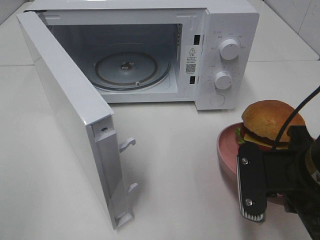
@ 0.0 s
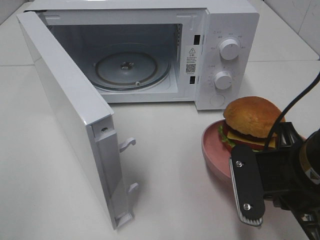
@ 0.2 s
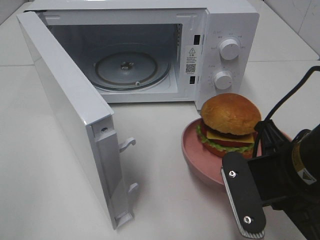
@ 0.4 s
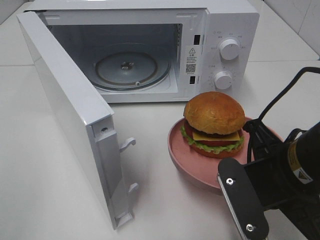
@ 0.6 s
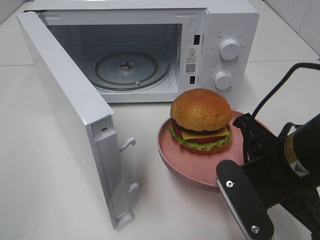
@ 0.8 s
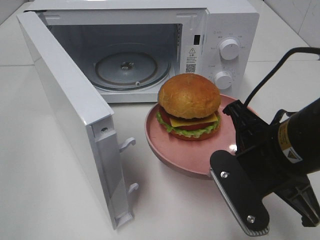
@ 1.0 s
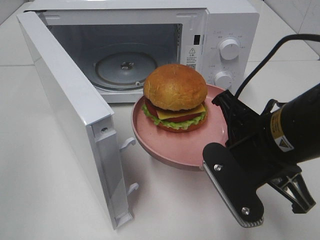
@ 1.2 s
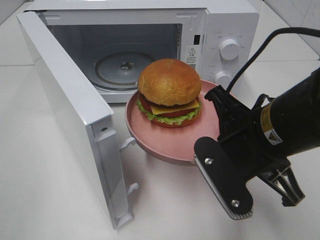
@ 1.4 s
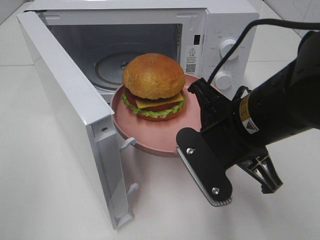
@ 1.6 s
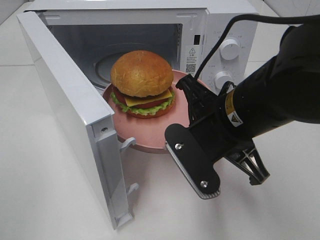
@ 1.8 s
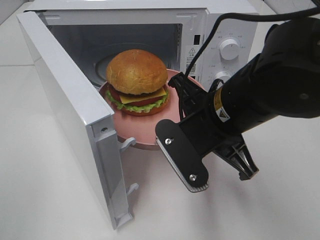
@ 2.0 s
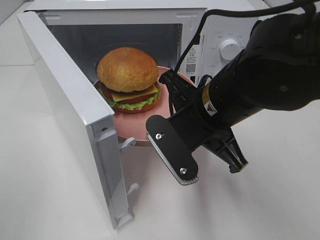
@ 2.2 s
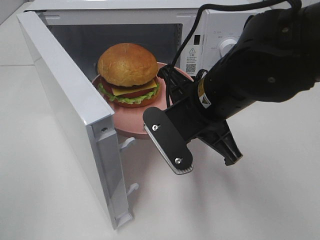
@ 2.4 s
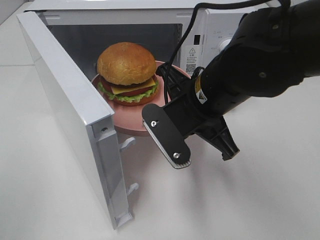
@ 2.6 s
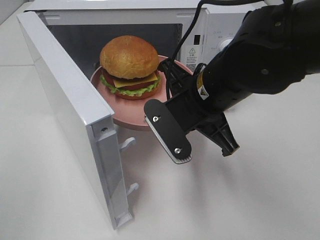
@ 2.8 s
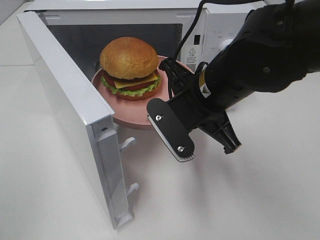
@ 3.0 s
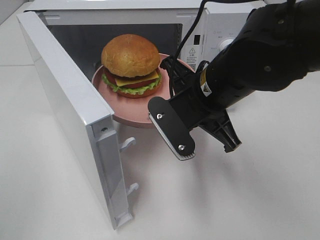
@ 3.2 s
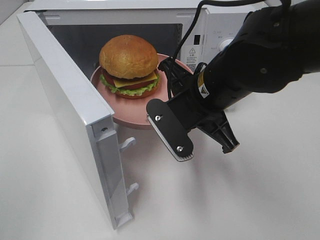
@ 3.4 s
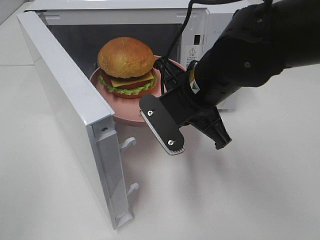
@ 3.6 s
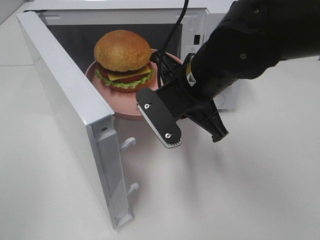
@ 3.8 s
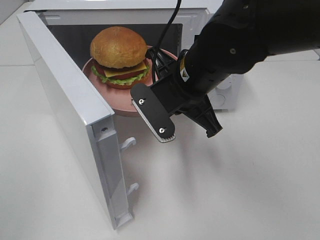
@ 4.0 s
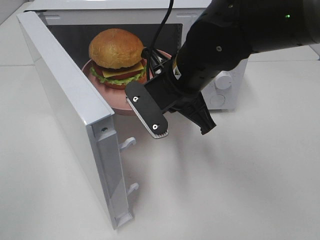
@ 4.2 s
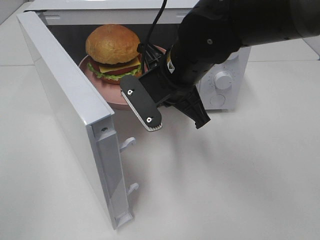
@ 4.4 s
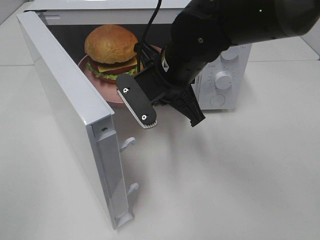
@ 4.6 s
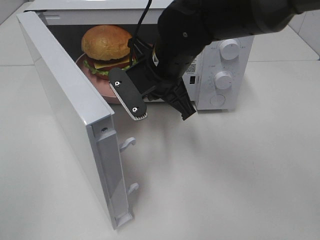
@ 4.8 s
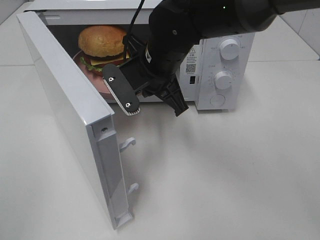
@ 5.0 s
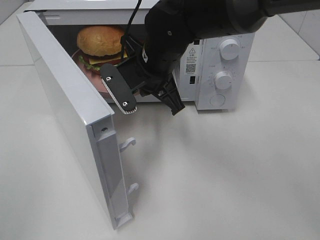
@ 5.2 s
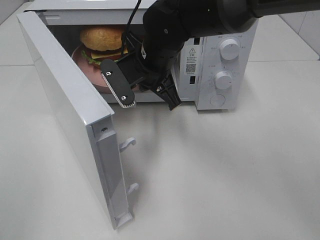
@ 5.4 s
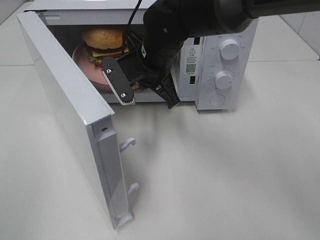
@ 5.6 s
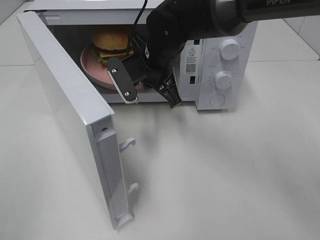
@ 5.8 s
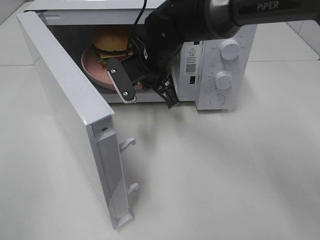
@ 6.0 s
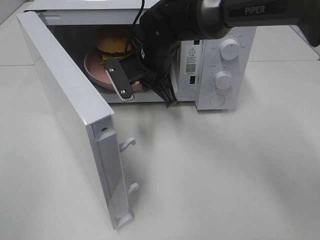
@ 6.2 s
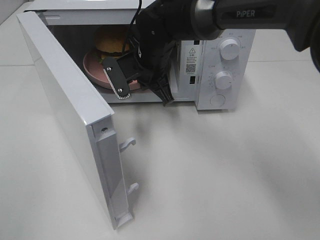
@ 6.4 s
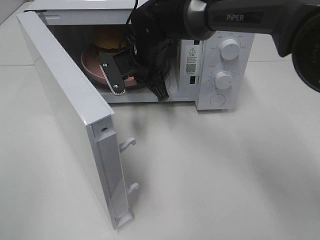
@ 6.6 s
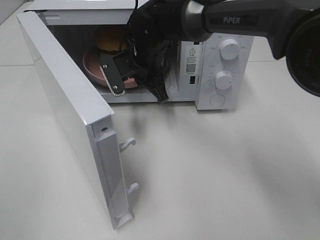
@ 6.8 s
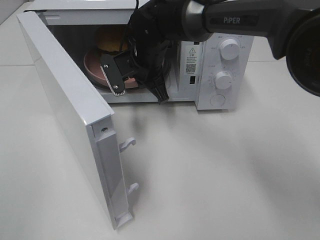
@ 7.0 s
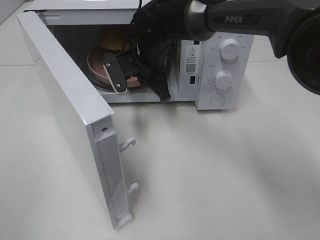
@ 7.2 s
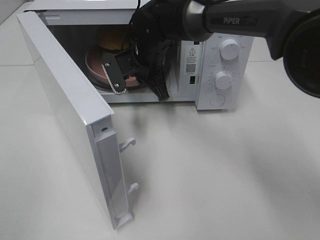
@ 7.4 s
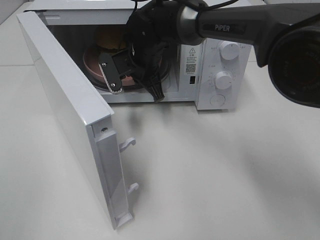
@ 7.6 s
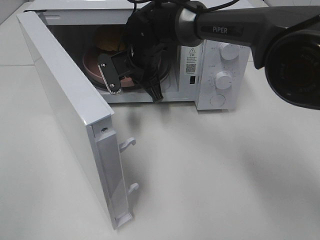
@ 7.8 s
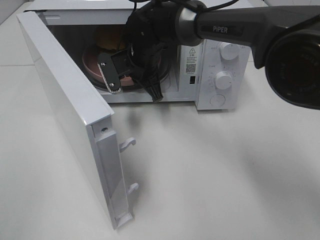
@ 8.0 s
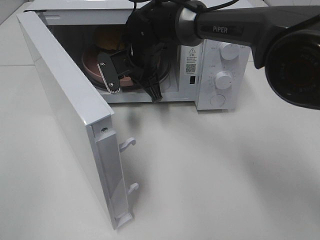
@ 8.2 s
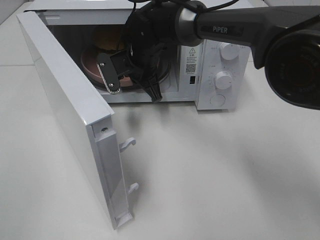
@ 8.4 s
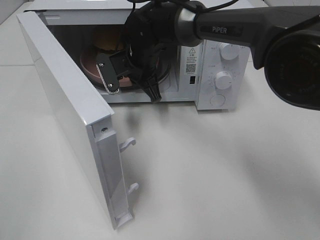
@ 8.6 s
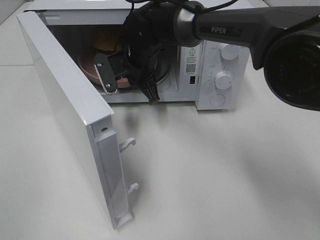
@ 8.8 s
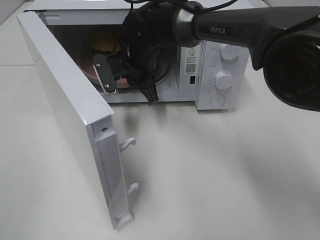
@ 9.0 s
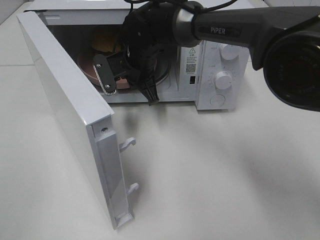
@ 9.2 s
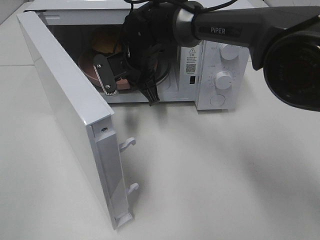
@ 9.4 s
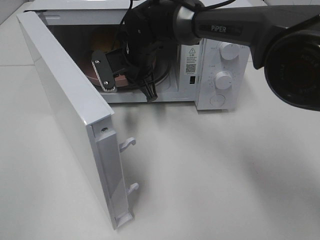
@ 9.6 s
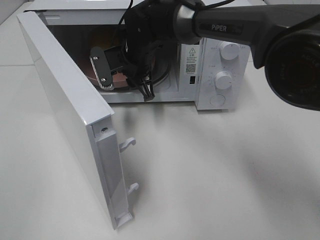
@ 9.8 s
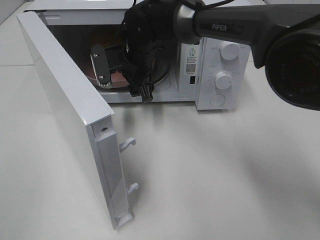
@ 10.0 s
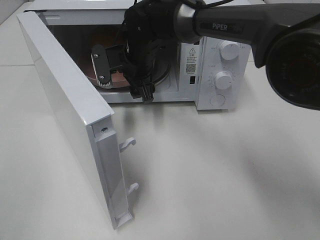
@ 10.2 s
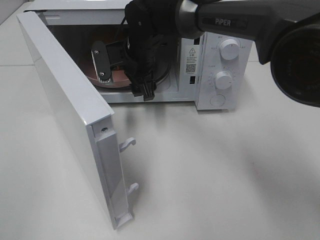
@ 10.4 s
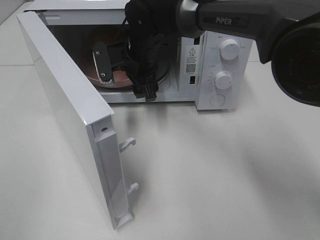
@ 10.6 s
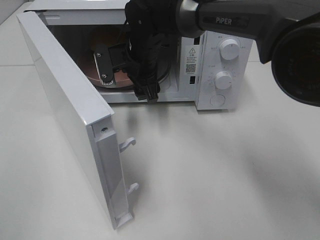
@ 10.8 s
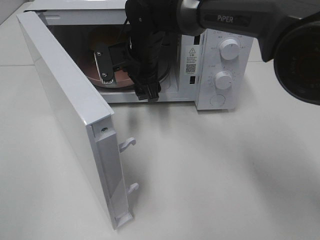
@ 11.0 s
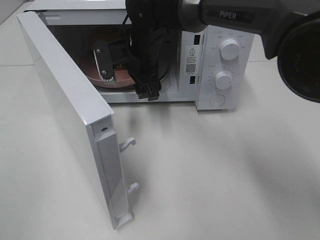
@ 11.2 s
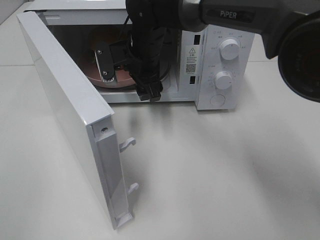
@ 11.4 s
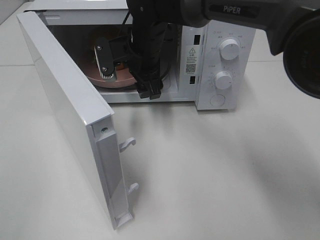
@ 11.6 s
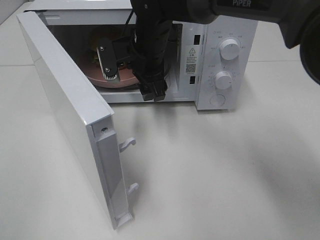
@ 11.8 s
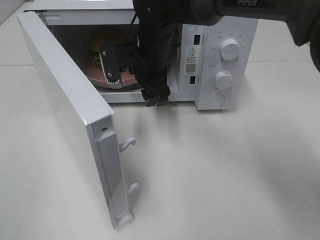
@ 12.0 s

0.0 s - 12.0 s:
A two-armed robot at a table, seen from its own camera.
Task of the whole recording: Heat the burger.
Step, 0.0 s - 9.6 s: Right hand: place the plate in the microwave.
0.0 s - 1.6 s: The right gripper travels to the left by about 5 cm.
1.6 s - 3.0 s: The right gripper travels forward by roughly 5 cm.
3.0 s - 4.4 s: The right gripper changes place by approximately 5 cm.
4.4 s - 6.0 s: The right gripper travels forward by roughly 10 cm.
6.0 s - 7.6 s: The right gripper moves roughly 5 cm.
7.6 s - 9.0 s: The two grippers keep their place.
9.0 s - 10.4 s: The right gripper opens its fingers.
10.4 s - 12.0 s: The grippers stay close to where they were, moving slightly.

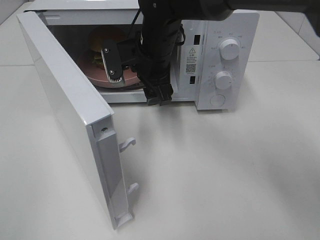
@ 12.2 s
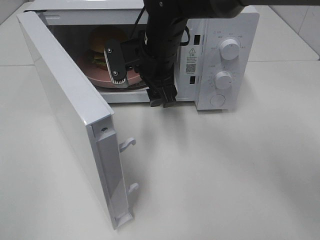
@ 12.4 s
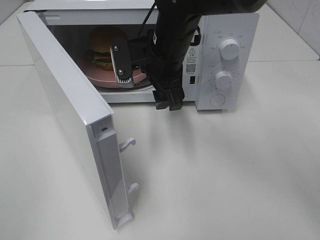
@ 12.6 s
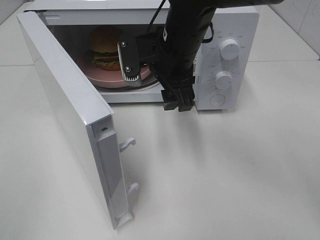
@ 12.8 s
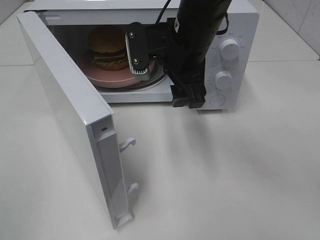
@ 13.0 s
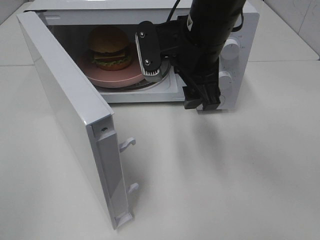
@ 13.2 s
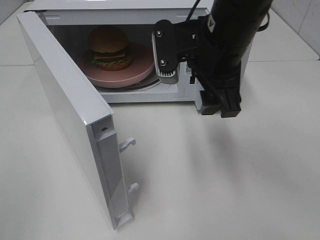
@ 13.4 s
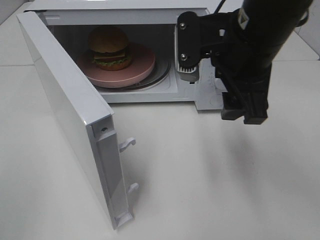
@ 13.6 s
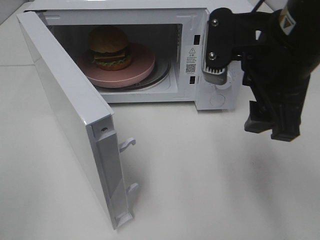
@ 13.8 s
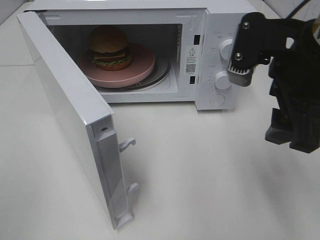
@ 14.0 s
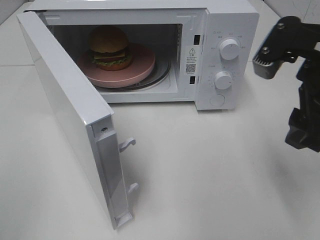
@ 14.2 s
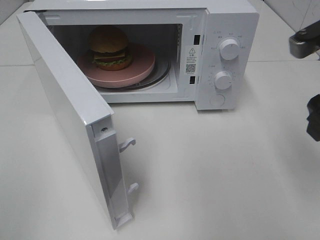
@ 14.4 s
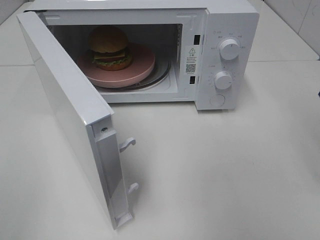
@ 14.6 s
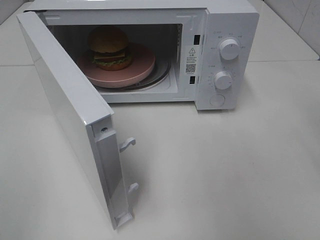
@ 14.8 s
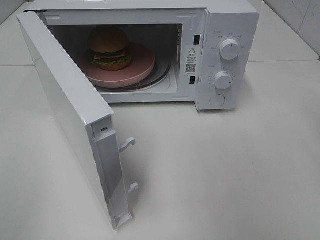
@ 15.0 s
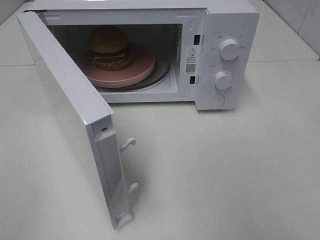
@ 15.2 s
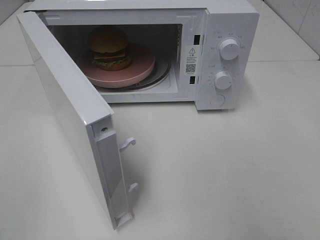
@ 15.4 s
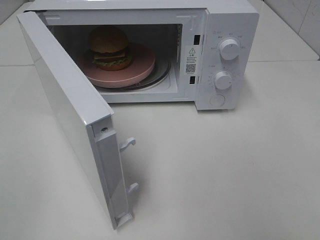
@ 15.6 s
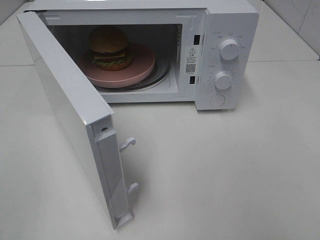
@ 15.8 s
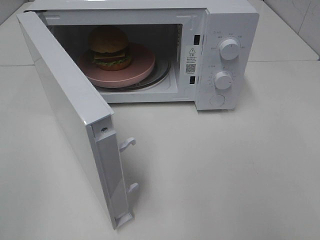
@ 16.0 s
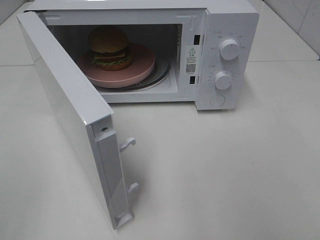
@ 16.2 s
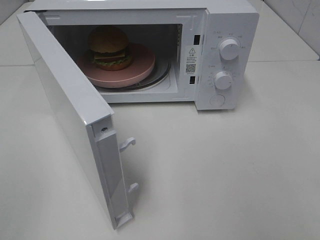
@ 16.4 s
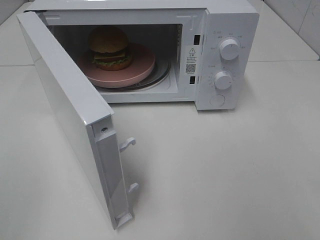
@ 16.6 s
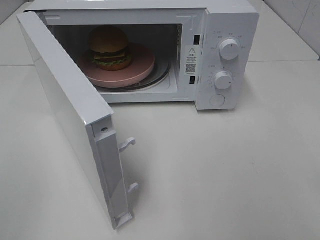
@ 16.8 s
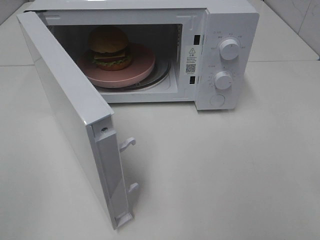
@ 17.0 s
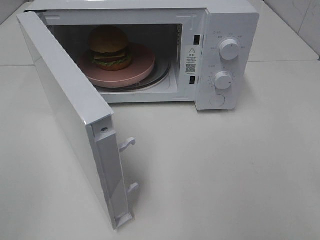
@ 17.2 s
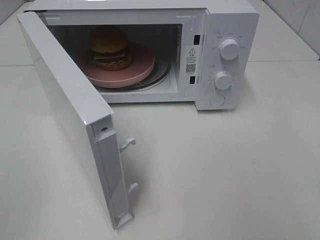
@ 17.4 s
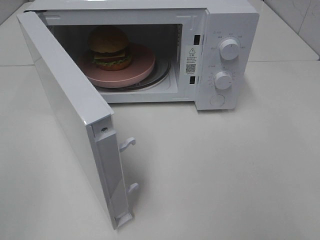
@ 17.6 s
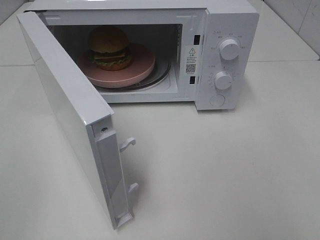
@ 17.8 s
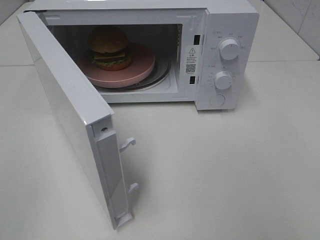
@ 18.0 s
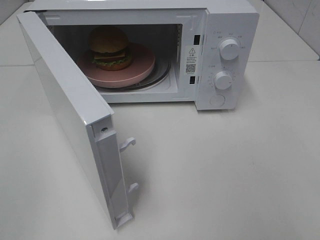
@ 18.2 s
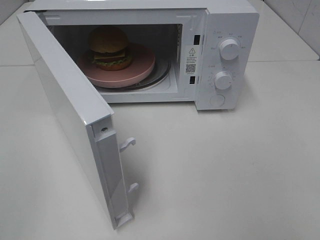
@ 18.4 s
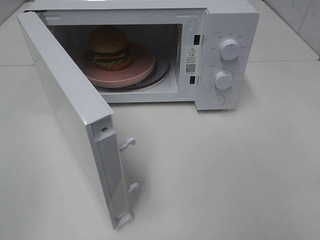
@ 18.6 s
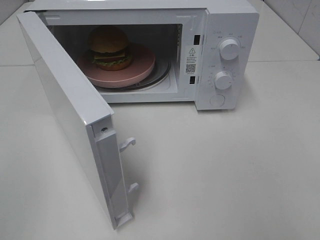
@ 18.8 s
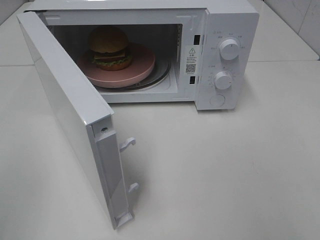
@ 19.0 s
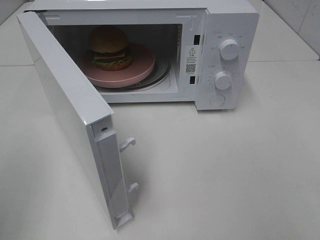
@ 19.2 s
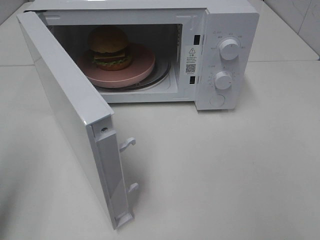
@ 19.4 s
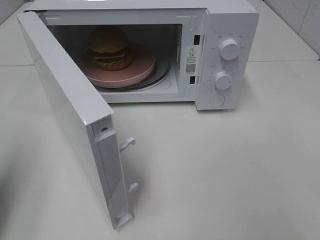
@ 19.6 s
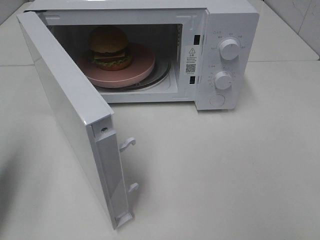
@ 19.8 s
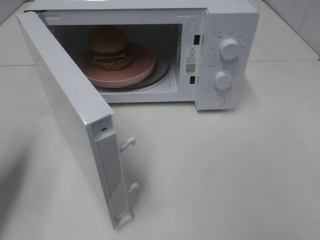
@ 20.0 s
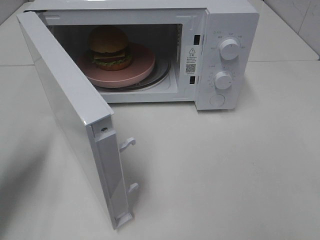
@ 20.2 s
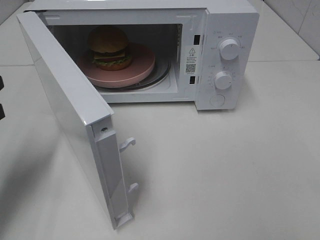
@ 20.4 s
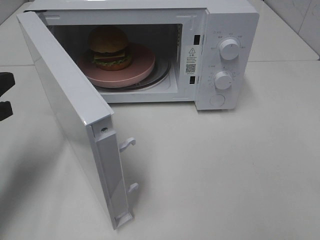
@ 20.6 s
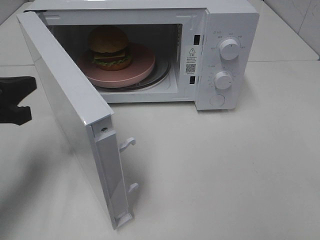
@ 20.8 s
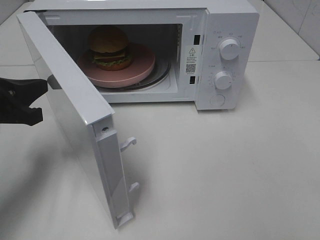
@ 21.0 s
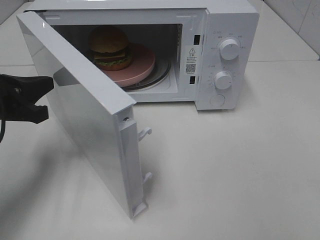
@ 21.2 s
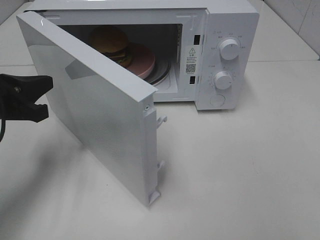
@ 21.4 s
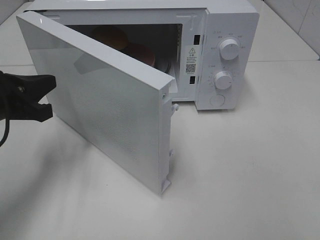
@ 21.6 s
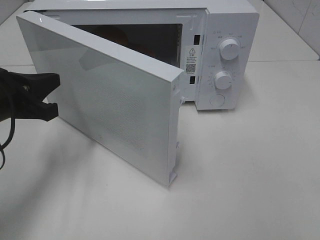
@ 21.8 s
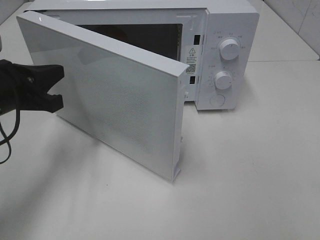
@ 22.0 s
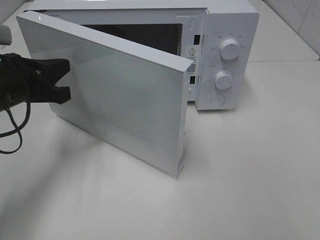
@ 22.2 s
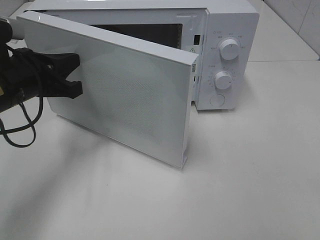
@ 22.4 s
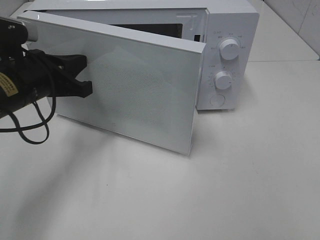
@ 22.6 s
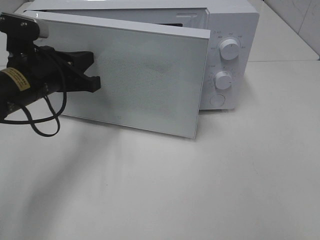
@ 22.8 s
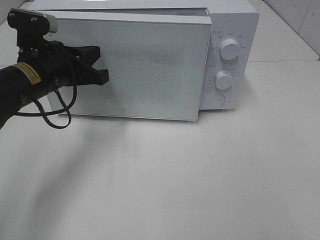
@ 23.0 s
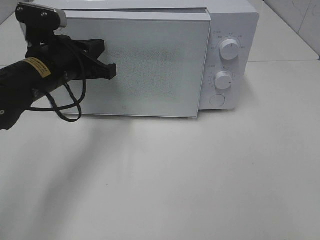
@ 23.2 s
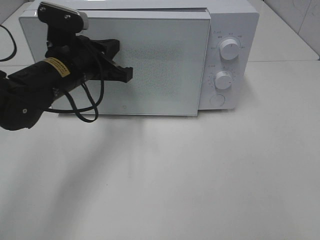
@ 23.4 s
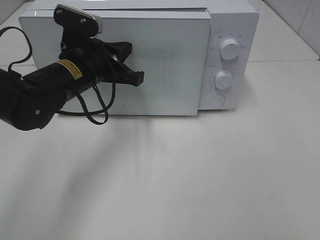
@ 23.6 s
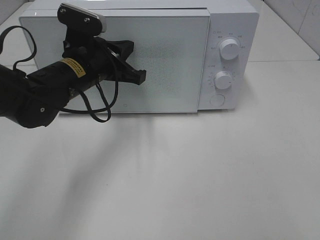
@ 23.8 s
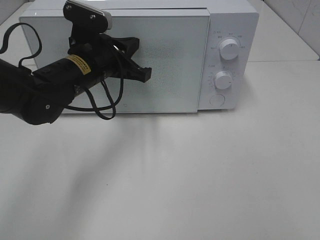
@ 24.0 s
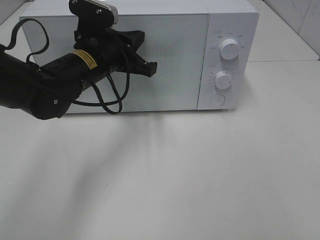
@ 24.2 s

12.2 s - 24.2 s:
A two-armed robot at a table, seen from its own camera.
Task of the whole recording: Heat the burger.
12.2 s - 13.8 s: The right gripper heads backward, to the right and upward, covering some 25 cm.
13.8 s - 15.2 s: The right gripper goes approximately 20 cm to the right and backward.
16.6 s - 18.2 s: Neither gripper changes place.
18.2 s - 19.8 s: The left gripper travels forward by approximately 15 cm, and closes up.
19.8 s - 21.2 s: The left gripper travels forward, to the right and downward by approximately 15 cm.
21.2 s - 22.6 s: The left gripper travels to the right by some 5 cm.
22.6 s - 24.2 s: The left gripper goes some 10 cm to the right and forward.
